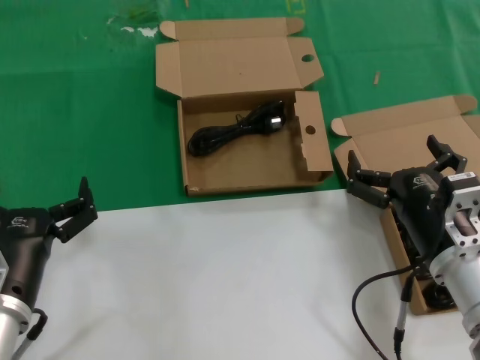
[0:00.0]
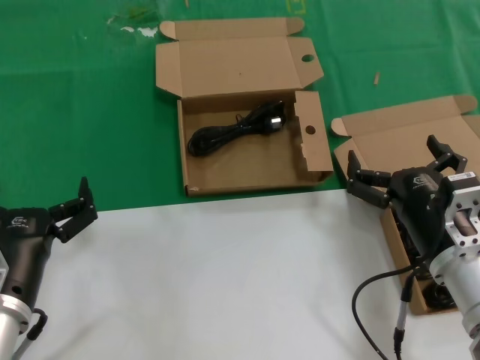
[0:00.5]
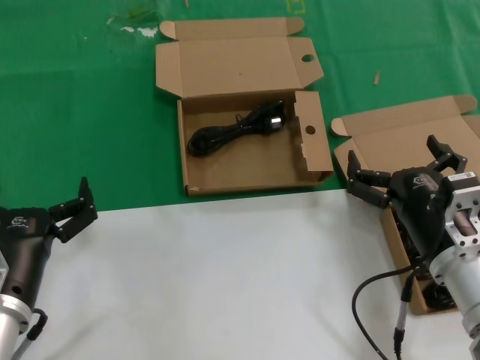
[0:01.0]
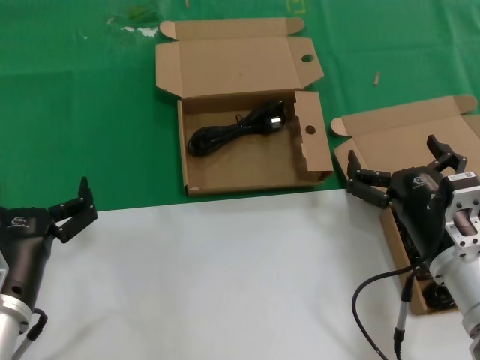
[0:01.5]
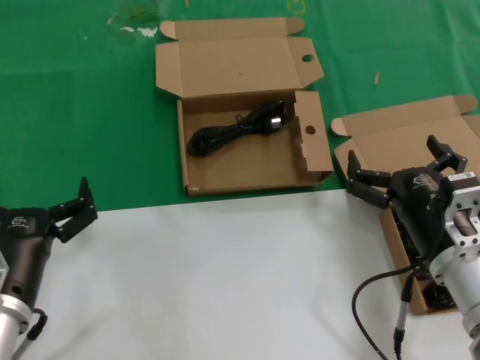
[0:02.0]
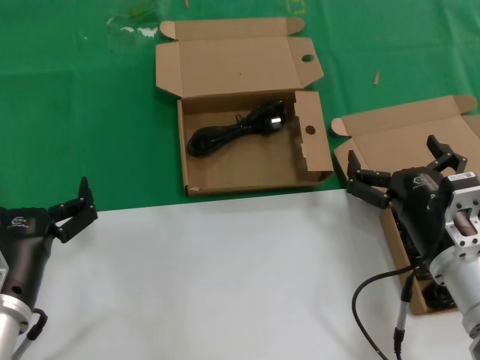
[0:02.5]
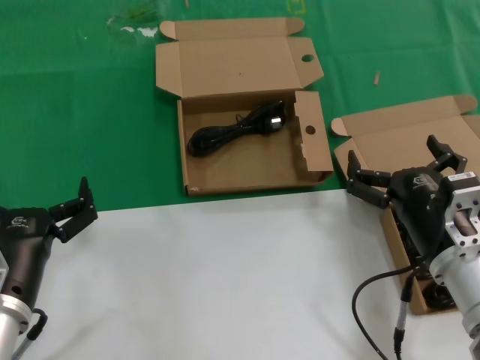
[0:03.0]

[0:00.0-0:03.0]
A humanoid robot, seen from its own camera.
Task of the whole recording: take the parts from the box containing them and put them into an empty box.
0:00.0 to 0:03.0: Both hands stay about where they are.

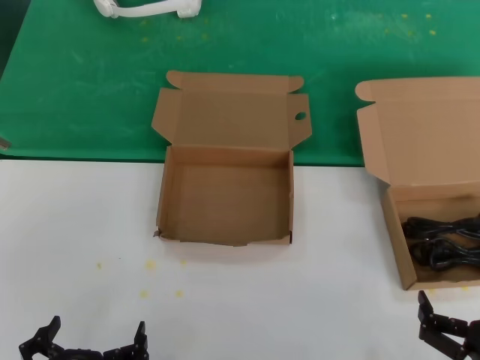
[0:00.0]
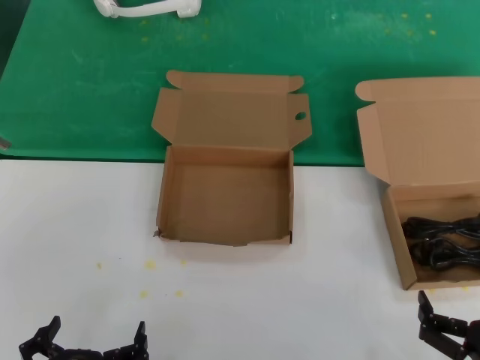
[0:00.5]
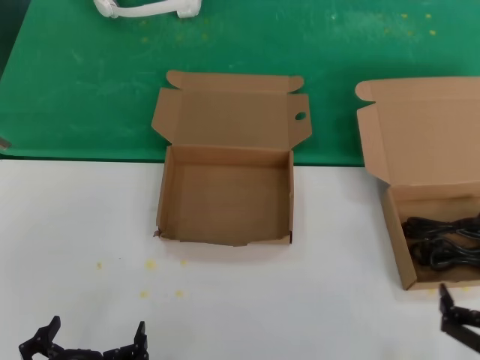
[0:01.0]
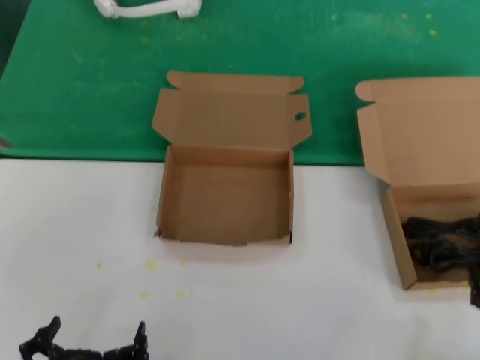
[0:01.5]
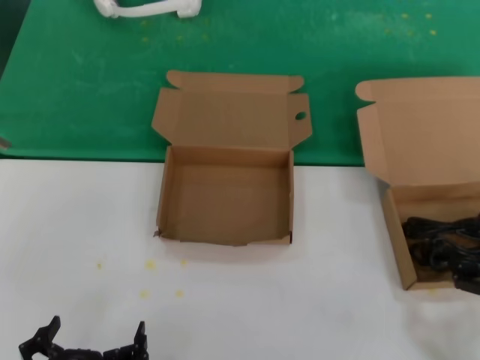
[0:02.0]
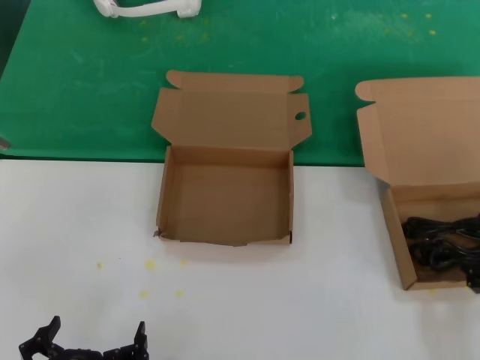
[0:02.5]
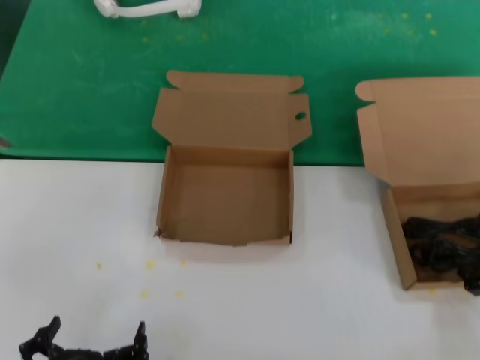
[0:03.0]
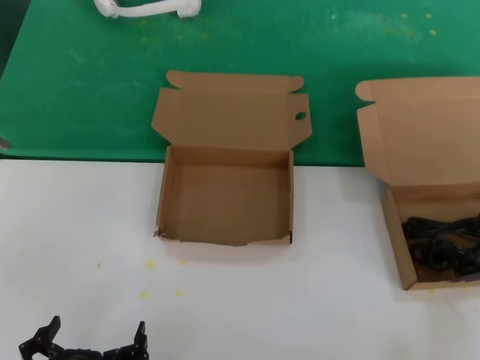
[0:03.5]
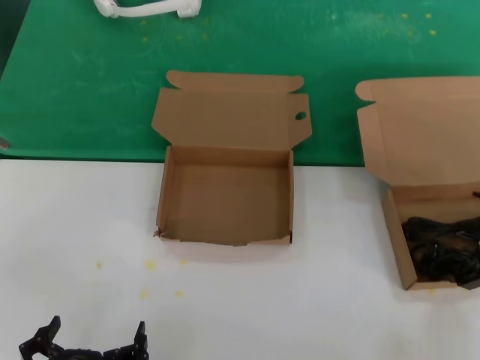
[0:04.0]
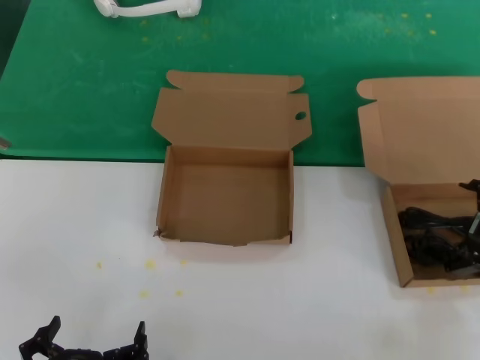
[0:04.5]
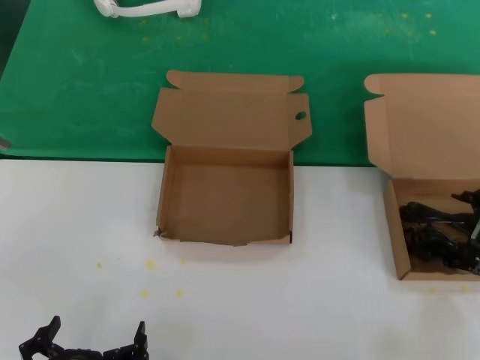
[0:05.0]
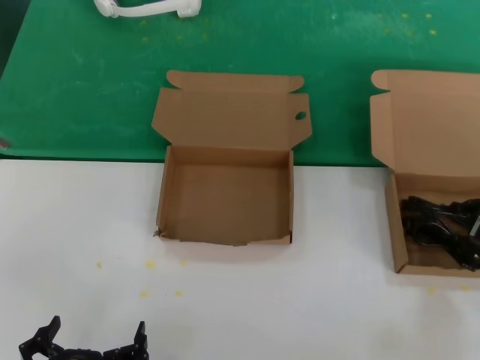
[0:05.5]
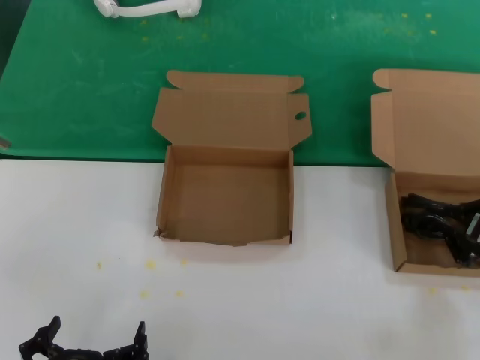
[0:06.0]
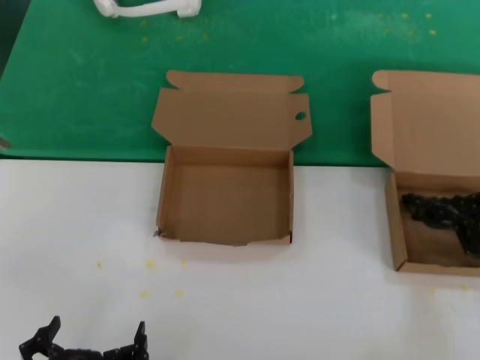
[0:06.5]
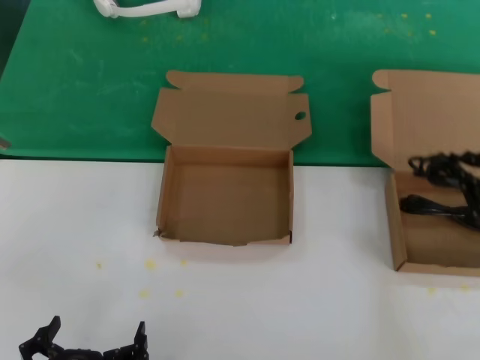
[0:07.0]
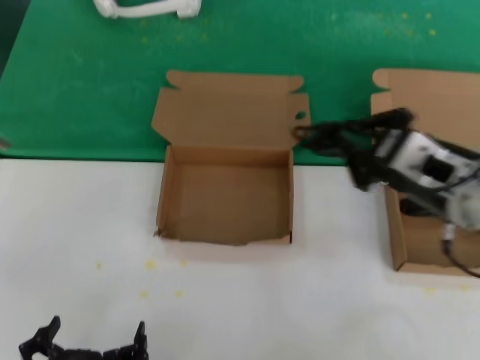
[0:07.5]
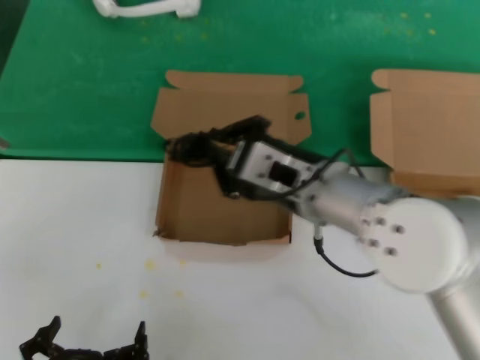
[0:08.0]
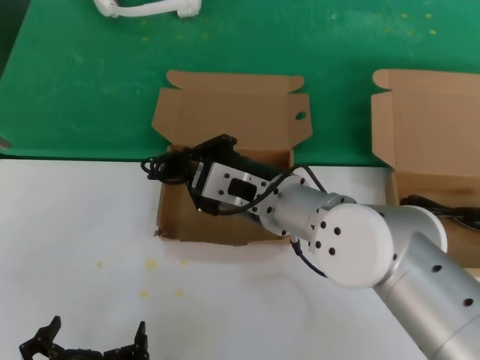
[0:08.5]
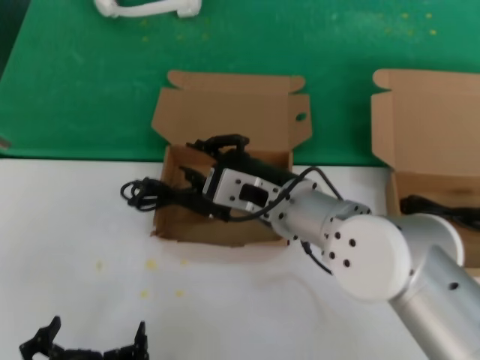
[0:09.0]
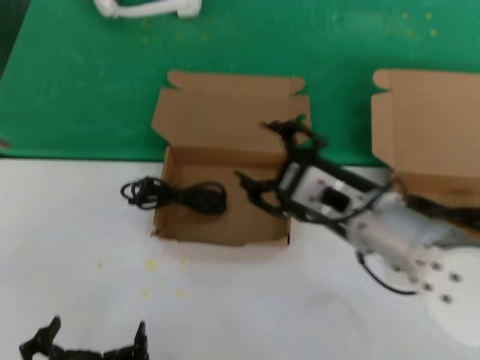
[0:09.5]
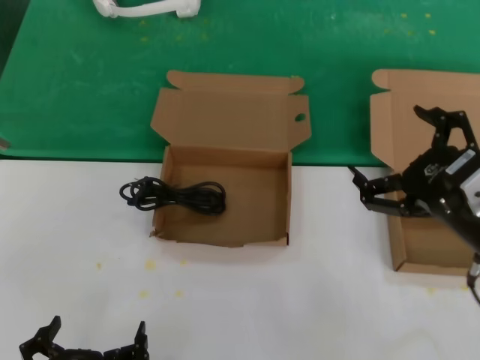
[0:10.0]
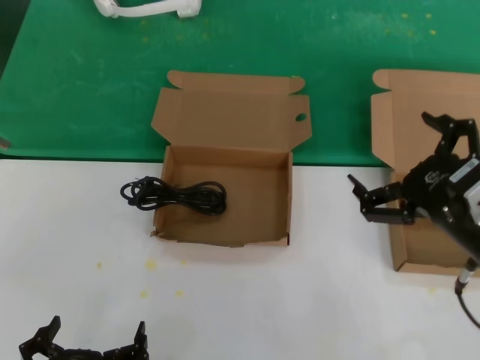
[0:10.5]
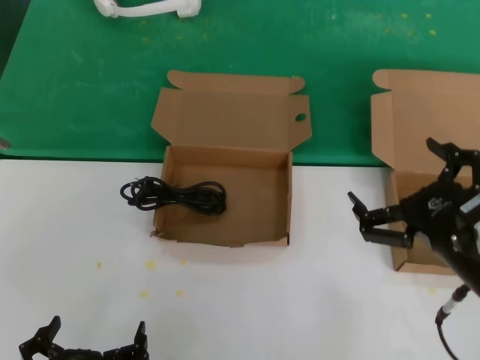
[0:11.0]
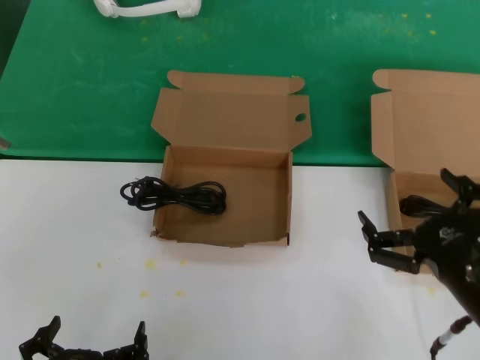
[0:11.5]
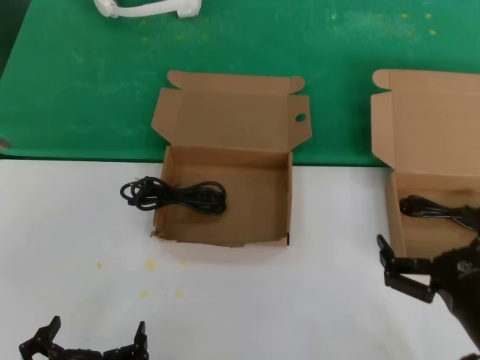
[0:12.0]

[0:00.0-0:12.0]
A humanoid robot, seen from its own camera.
Task of the whole recording: take the parts from the box containing them and put them into an empty box.
Step, 0:00.0 to 0:06.0: Grasp the data cable.
Step, 0:06.5 to 0:09.0: Place the data cable in the another box.
0:00.0 to 0:02.0: The right hand travels forward and to the right by approximately 15 cm.
0:02.0 to 0:04.0: The right hand heads upward and forward, covering roughly 10 cm.
0:04.0 to 0:06.0: The hands stay close to where they were, moving slightly.
0:06.0 to 0:08.0: The right hand goes roughly 30 cm to the left.
0:08.0 to 0:10.0: The right hand shifts approximately 20 cm to the right and backward.
0:10.0 to 0:12.0: The right hand is displaced downward and backward by about 15 cm.

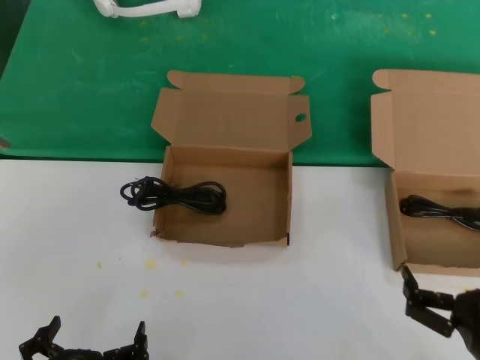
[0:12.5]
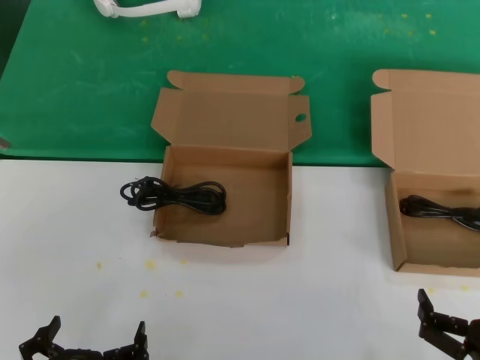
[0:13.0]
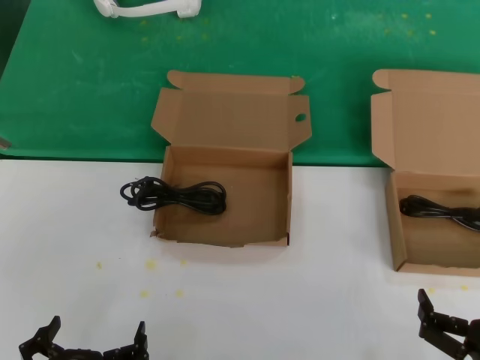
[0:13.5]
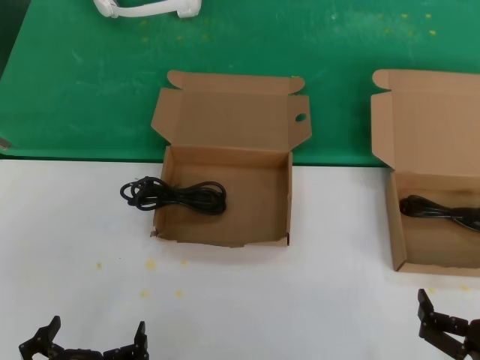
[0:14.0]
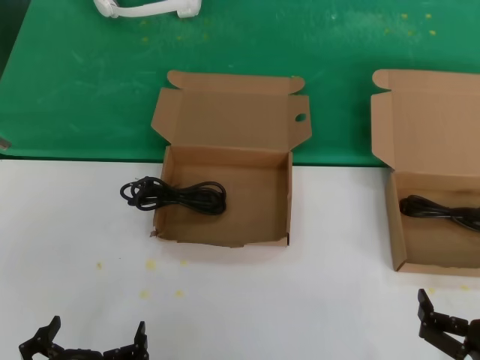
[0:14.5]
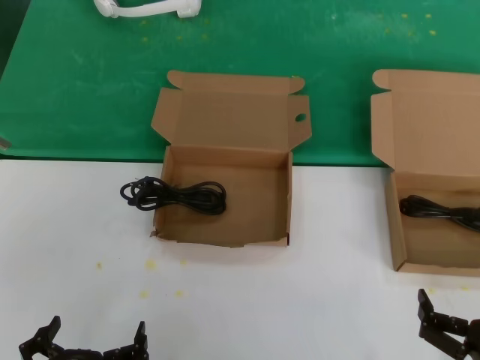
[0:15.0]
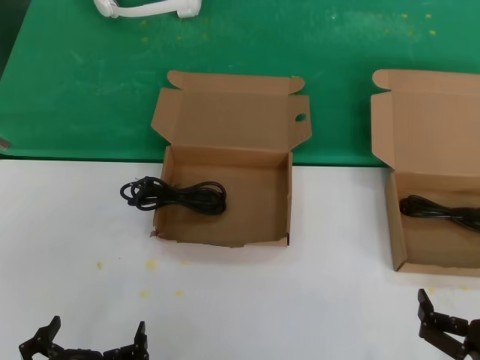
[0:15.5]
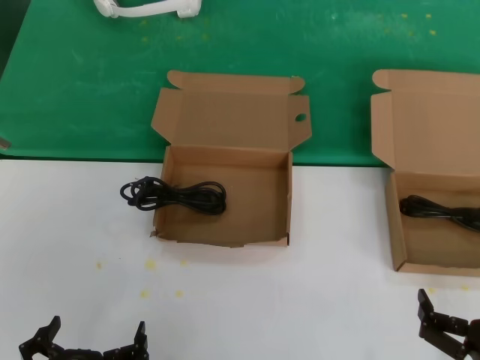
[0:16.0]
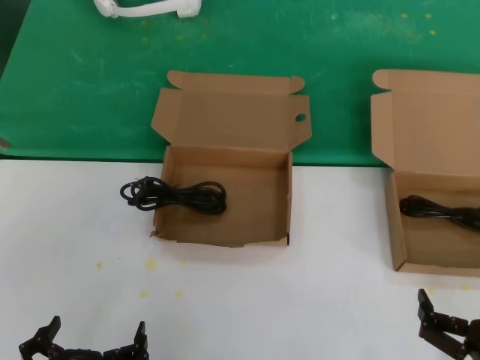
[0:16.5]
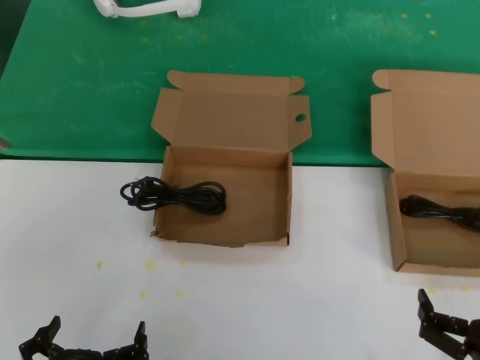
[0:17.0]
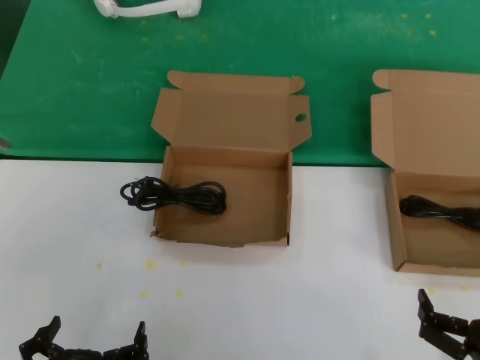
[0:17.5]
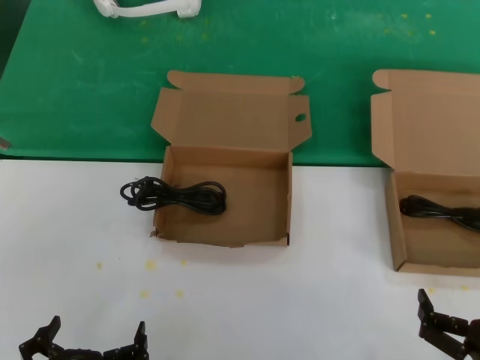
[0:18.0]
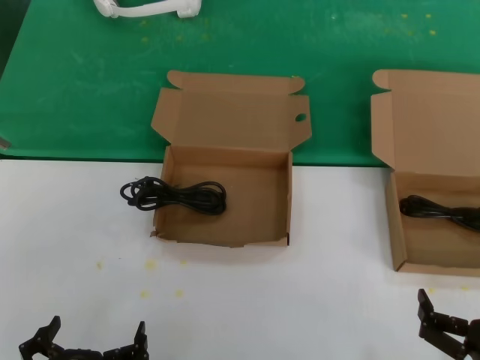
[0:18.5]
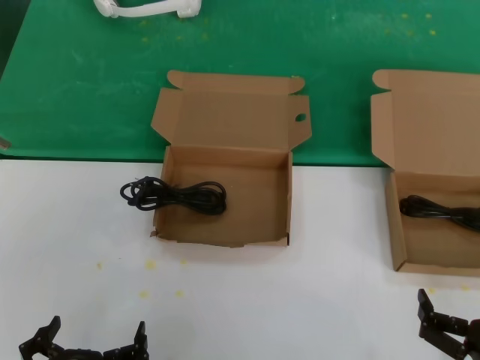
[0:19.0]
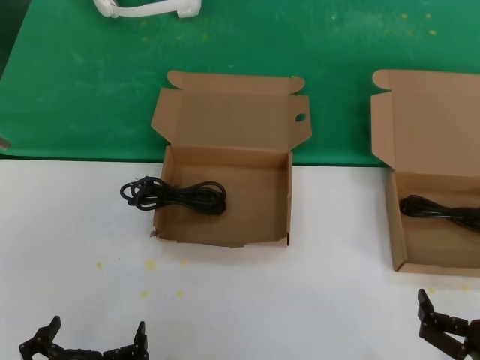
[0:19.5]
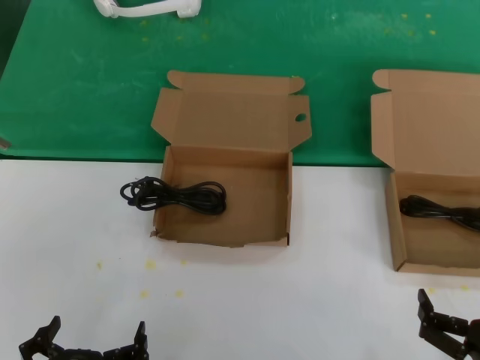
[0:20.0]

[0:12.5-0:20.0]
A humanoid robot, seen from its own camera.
Task of the whole recording: take the parts from the box containing them and put them into an empty box.
0:12.5 to 0:14.5: The hands move only a little.
0:14.5 to 0:20.0: Both hands stay about where they are.
